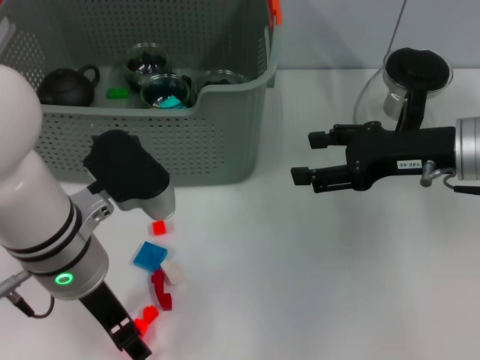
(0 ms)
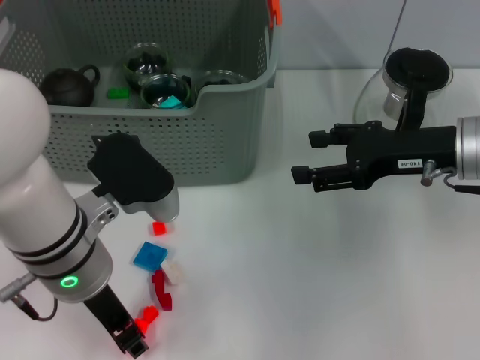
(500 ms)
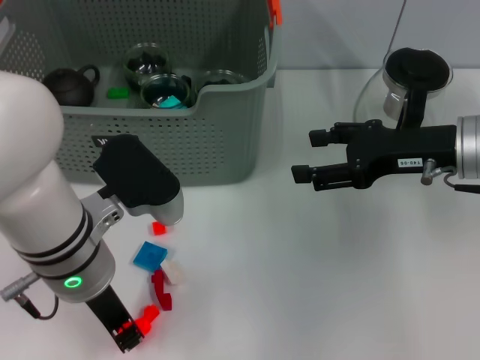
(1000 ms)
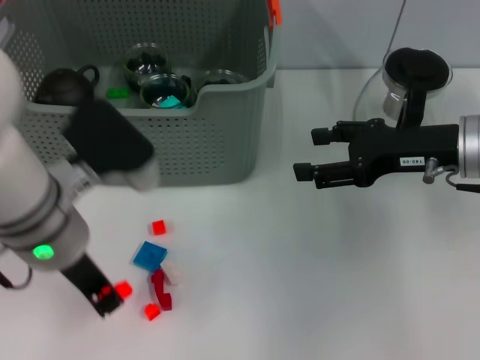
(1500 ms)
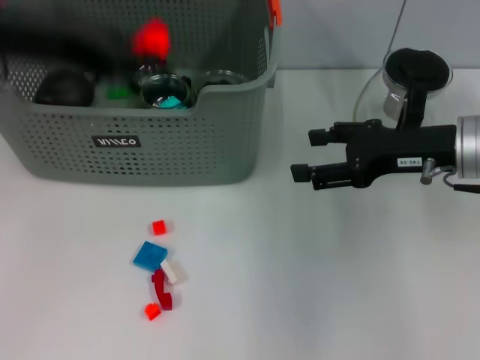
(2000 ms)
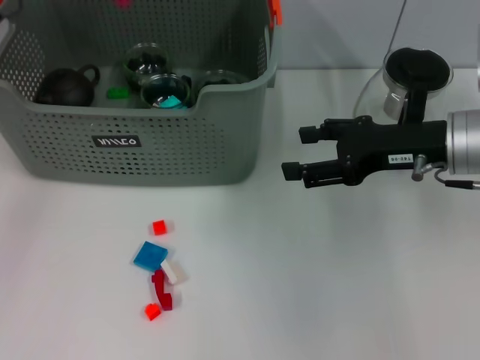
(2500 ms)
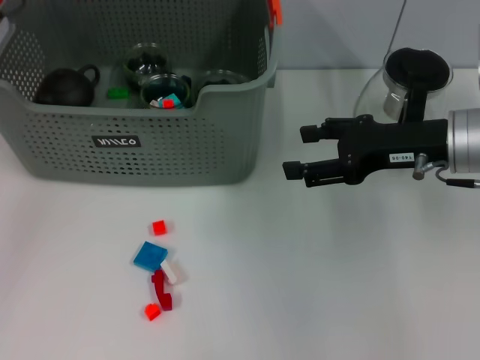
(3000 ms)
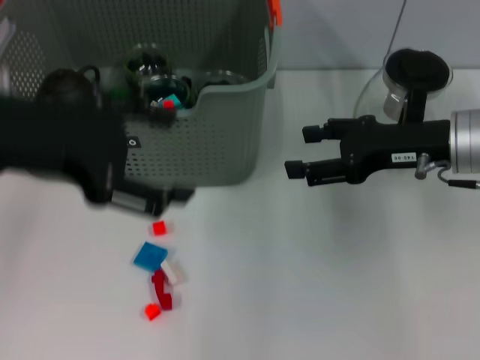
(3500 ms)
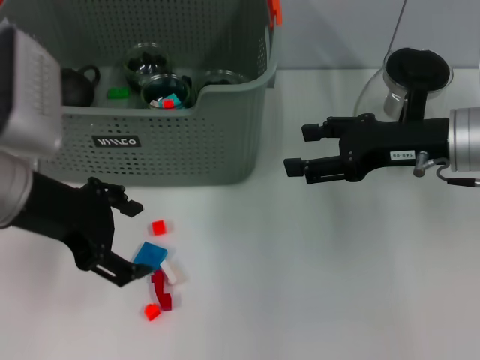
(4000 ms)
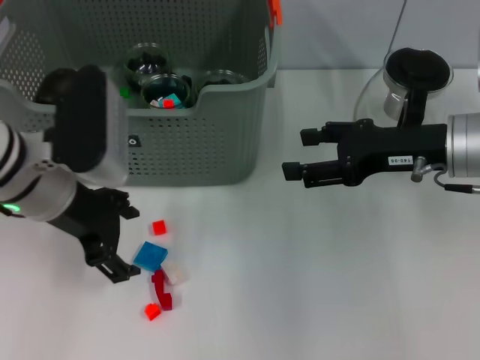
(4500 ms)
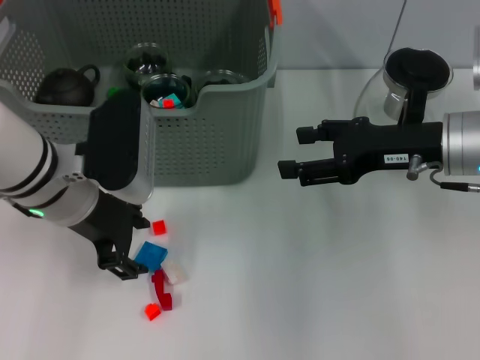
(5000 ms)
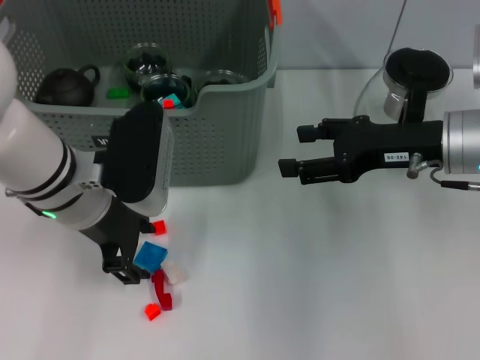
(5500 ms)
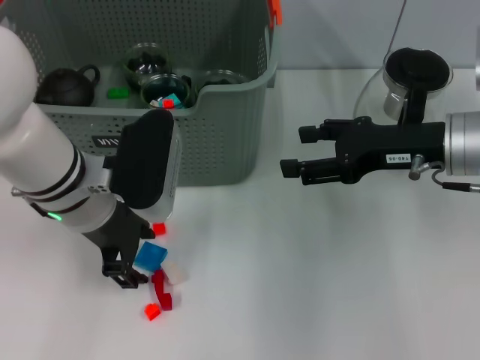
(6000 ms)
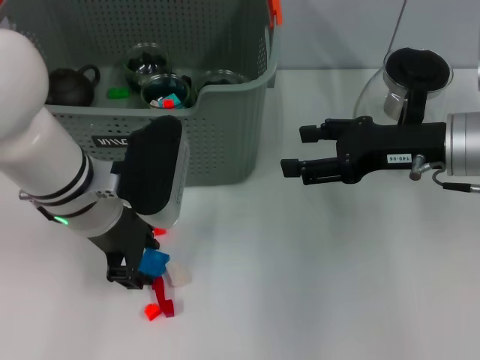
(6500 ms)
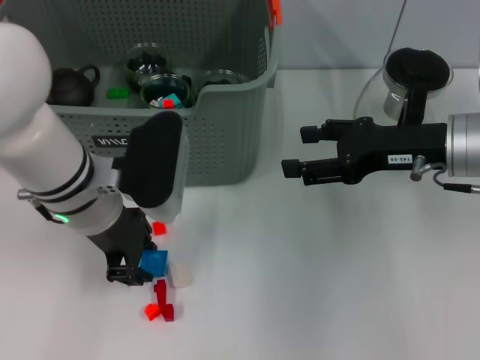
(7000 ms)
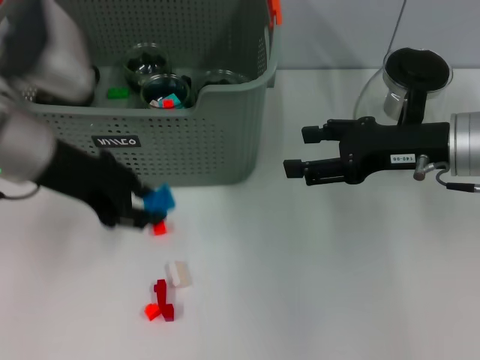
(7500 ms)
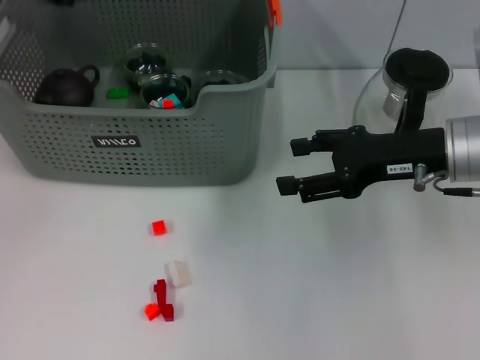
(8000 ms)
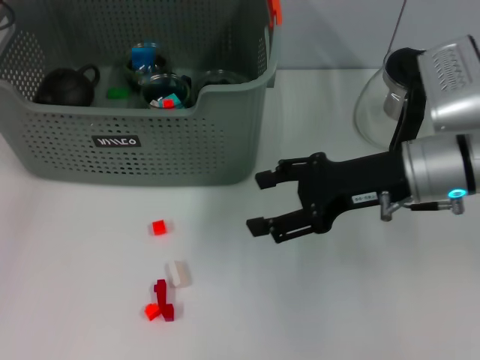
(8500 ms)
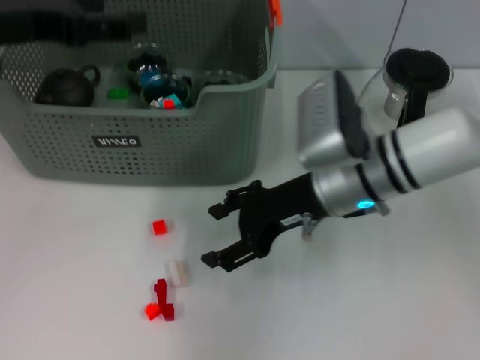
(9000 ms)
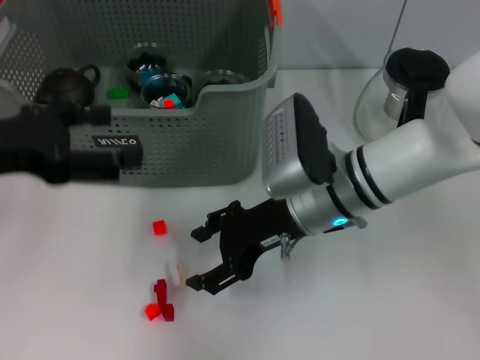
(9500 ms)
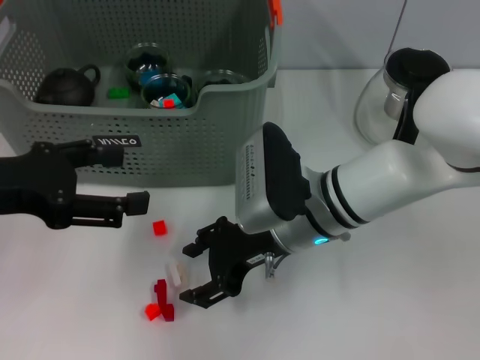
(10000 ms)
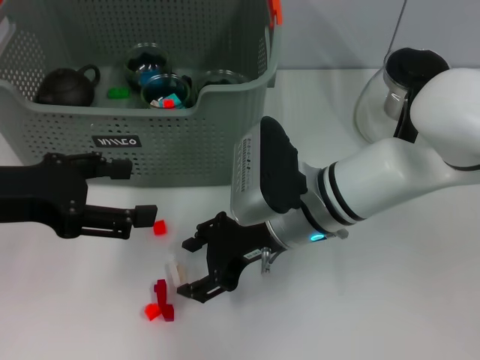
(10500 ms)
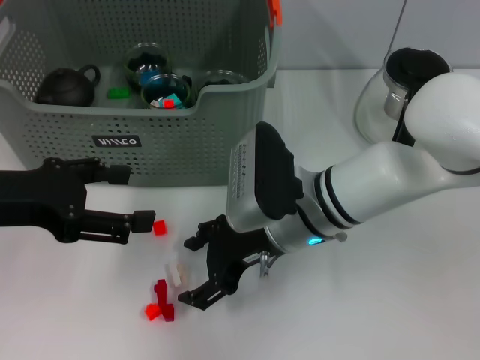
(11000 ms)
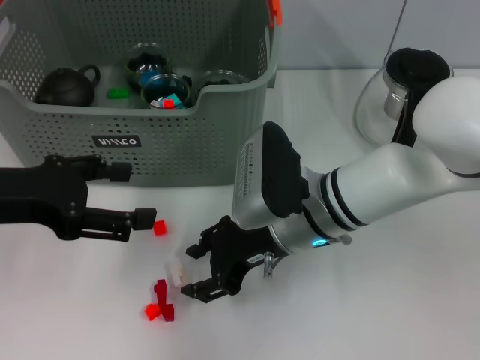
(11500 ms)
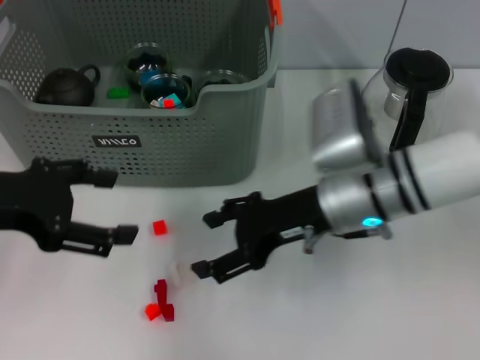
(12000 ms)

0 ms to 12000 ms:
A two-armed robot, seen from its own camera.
Task of the whole recording: pick up the teacup on the table and place it into the storage bin, pick up the block on the table and place it into the storage bin.
Step, 1500 ms to 2500 ms: Place the orange block in the storage box with left gripper.
Step, 3500 ms to 6500 ms: Grasp the dark blue block with left gripper.
Step, 7000 ms to 8500 ms: Place the dark blue block in the storage box with left gripper.
0 ms to 2000 ms: The left gripper moves upward and to the left, some 20 cm, and closes up.
2000 ms to 4000 ms: The left gripper goes approximately 10 cm downward, reaches roughly 15 cm forward, then returns, and opens.
4000 ms to 6000 ms: The left gripper travels to the right and downward by about 10 cm.
6000 ms to 8000 ms: The left gripper travels upward and to the left by approximately 20 cm.
8000 ms to 10000 ms: The right gripper travels to the left by some 15 cm, while the left gripper travels backward and downward by some 15 cm, and opens.
10000 ms to 12000 ms: The right gripper ends up roughly 5 cm from where it was.

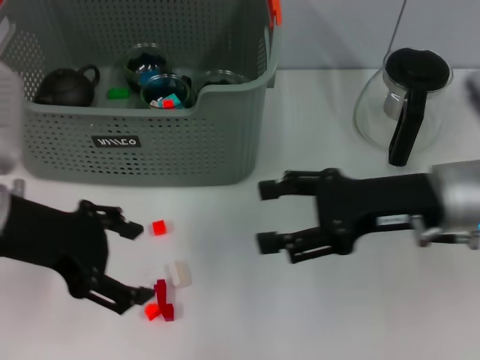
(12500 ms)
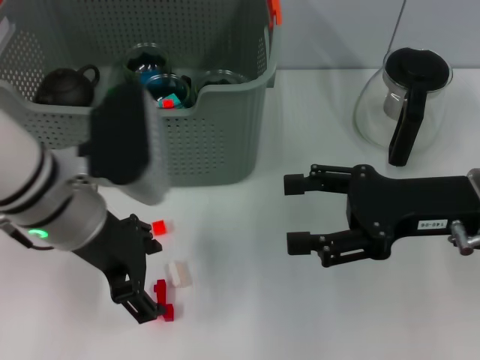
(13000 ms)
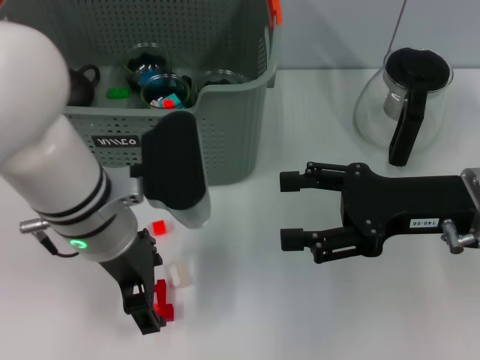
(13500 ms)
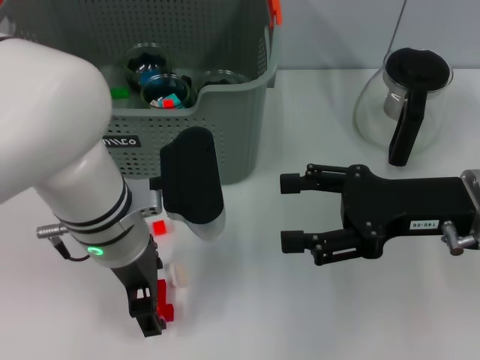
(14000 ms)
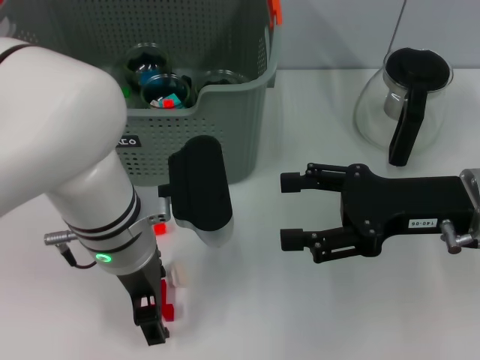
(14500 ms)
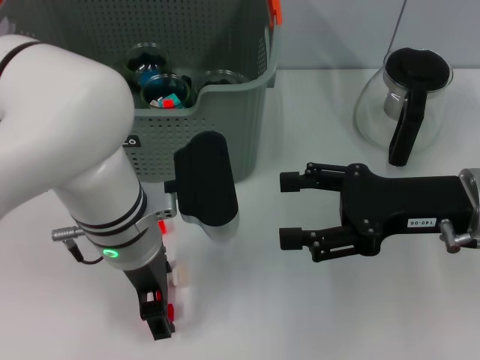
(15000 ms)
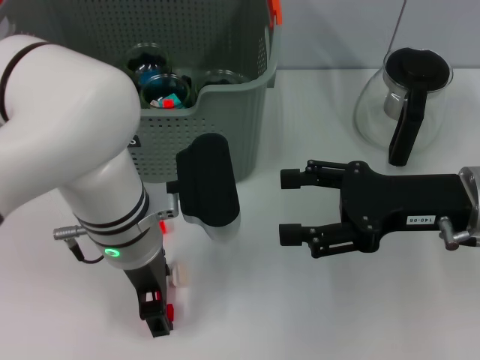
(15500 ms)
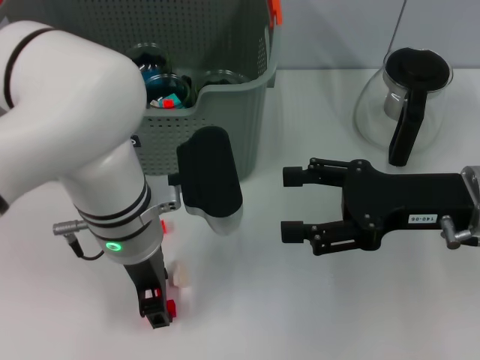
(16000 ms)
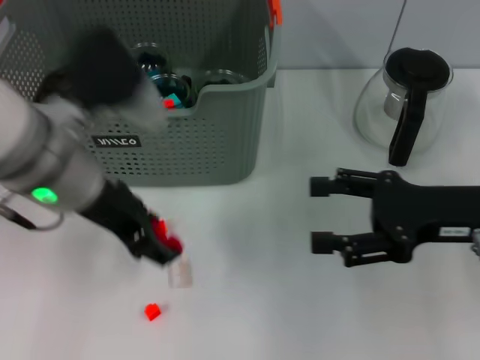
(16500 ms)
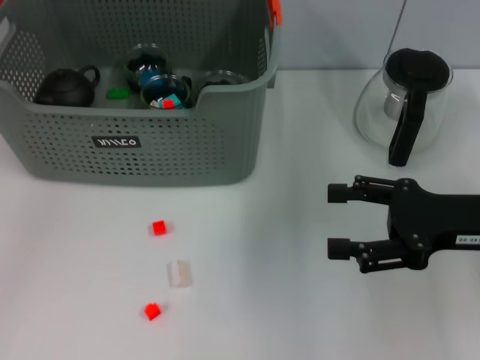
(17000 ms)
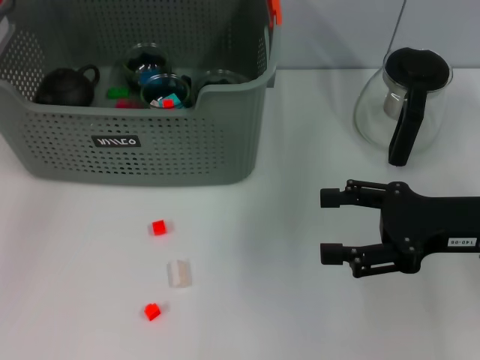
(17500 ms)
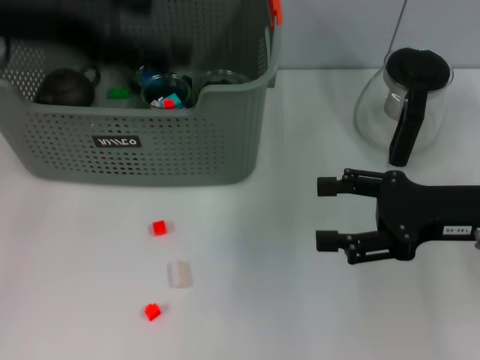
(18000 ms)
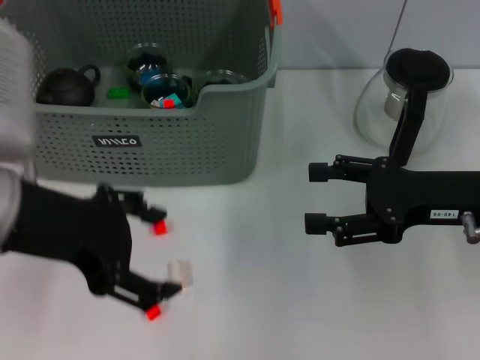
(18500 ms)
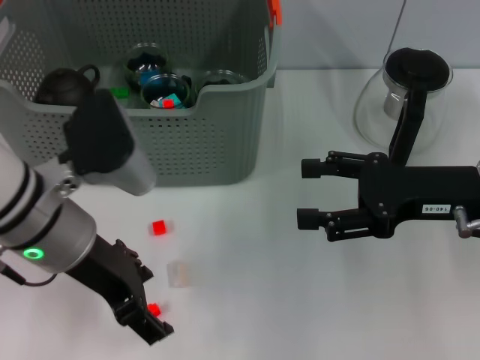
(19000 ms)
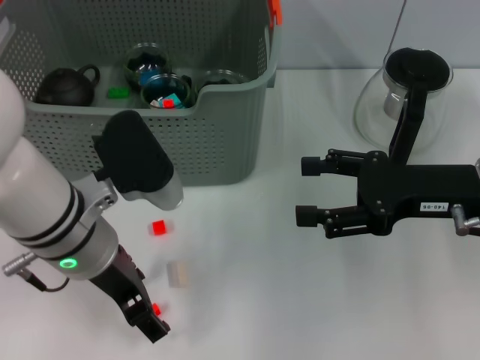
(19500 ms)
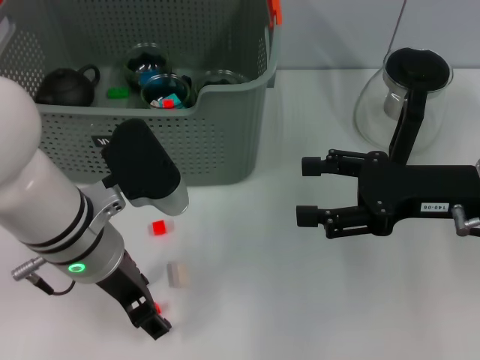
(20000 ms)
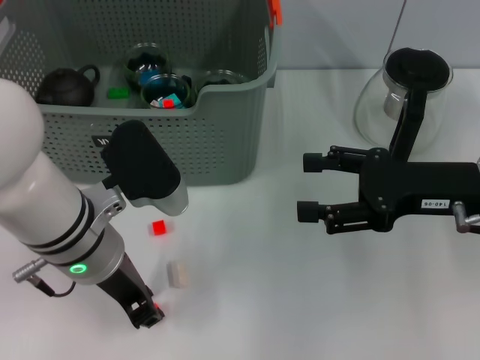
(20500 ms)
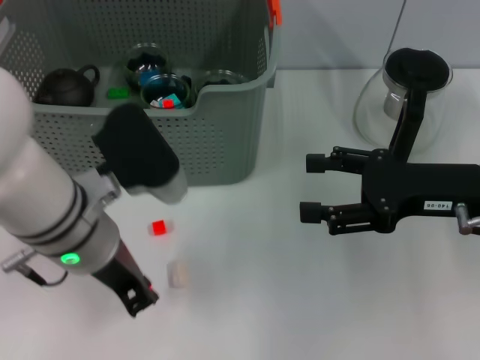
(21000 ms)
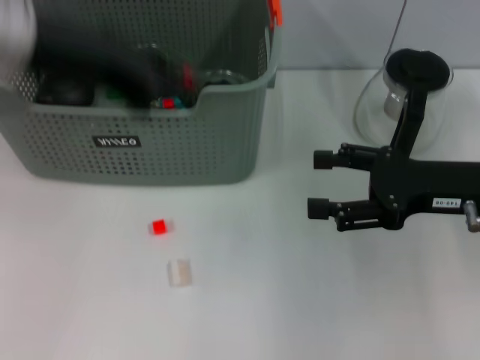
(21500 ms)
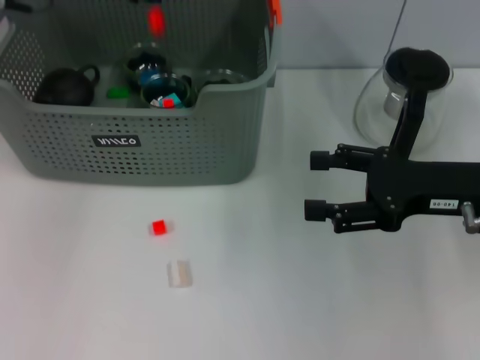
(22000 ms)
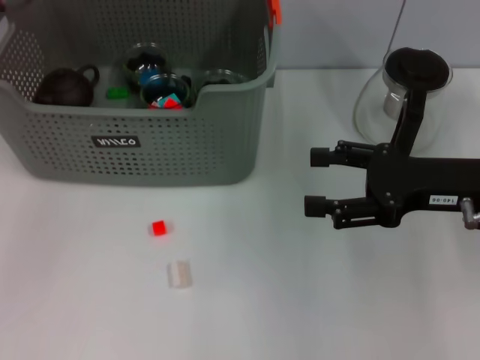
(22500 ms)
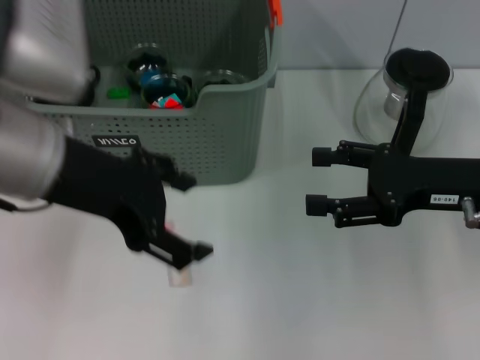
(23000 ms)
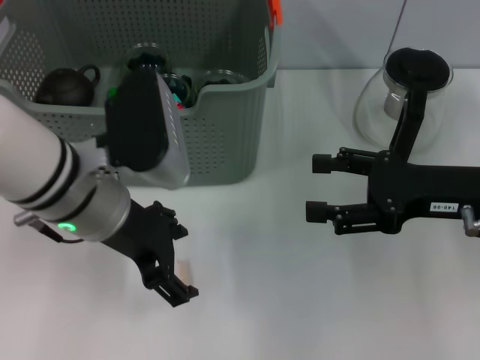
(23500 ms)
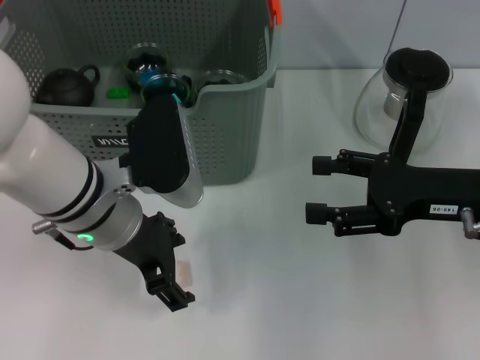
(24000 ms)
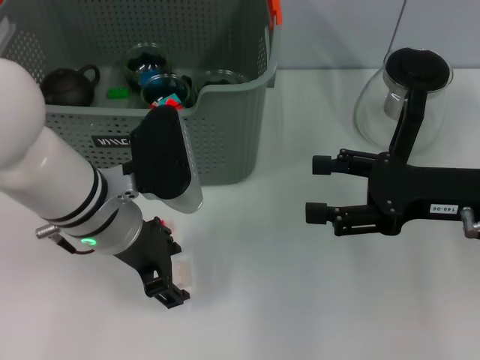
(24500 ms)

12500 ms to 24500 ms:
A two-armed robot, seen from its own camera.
Task of the whole recording: pick up the teacup on the table and place it into the storage bin, pick up the block on the table and place it into the storage bin.
Step, 12500 ms to 15500 ms: Grasp the red block with left gripper.
Step, 16000 ms to 17500 ms: Place the red block in the storage box with left gripper.
Step, 18000 ms to 20500 ms: Grasp the orange block with left gripper.
Step, 21000 ms to 22000 ms: Place the orange block in the storage box with left gripper.
12500 ms to 14500 ms: The left gripper moves to the right and downward, roughly 15 cm.
14500 ms to 16500 ms: The left gripper is displaced upward and to the left by about 10 cm.
16500 ms to 18500 ms: The left gripper reaches roughly 10 cm forward, then returns, and opens up.
18500 ms to 20500 ms: The left gripper goes about 10 cm downward and to the right, and closes up.
20500 ms to 22500 ms: The left gripper goes some 20 cm upward and forward, and closes, then reopens.
22500 ms to 24500 ms: The left gripper is displaced downward, to the right and backward by some 20 cm.

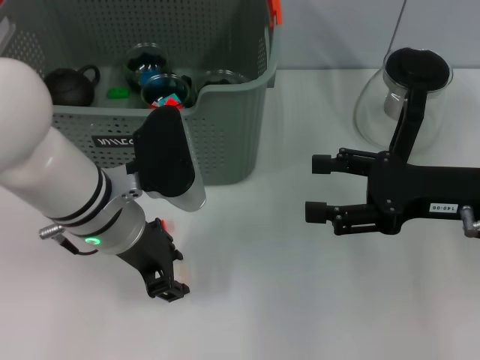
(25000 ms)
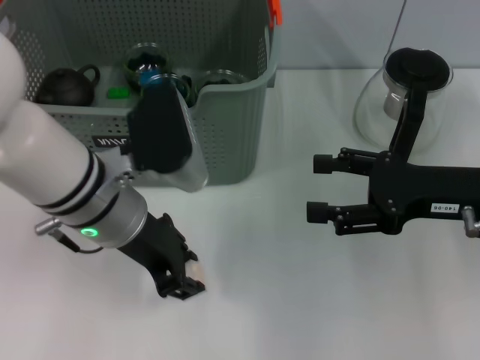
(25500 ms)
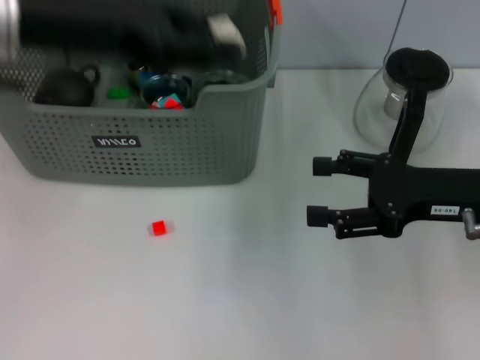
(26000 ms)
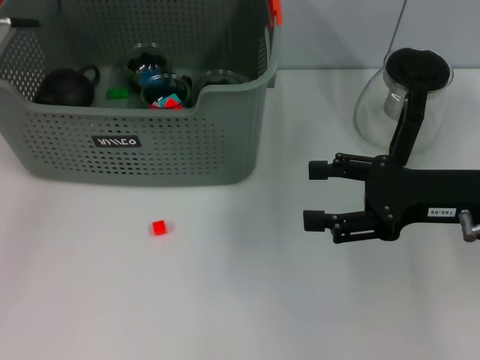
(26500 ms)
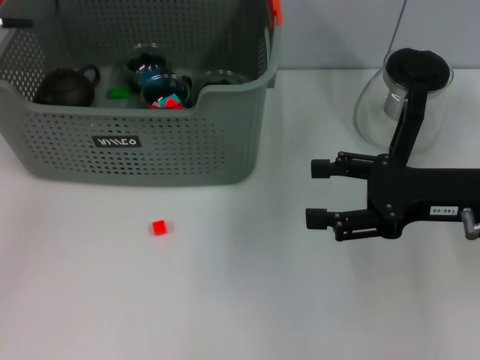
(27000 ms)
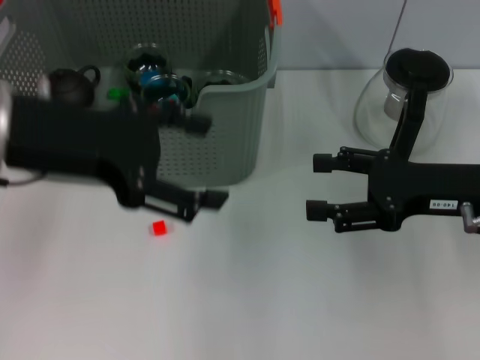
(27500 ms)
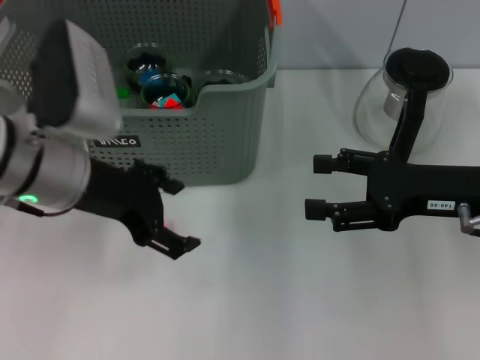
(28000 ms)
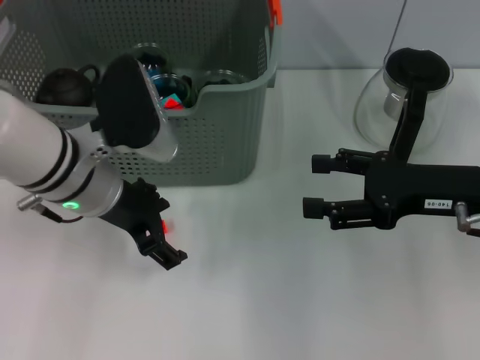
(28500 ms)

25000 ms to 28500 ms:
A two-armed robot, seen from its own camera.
Task of the whole recording: pick up the teacup on the table and place it into the storage bin, pick up the block on the table and place it into the storage bin.
Step, 25500 ms to 26500 ms: Place the white block in the storage box with left gripper.
25000 ms to 27000 ms: The left gripper heads upward, to the left and forward, covering some 20 cm.
27000 ms to 28500 ms: The left gripper shifts approximately 15 cm downward, backward and to the right.
